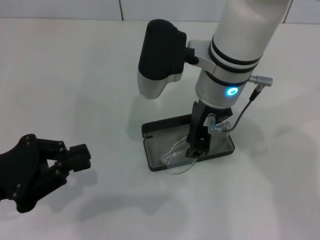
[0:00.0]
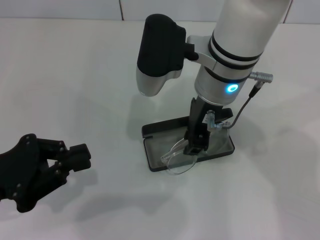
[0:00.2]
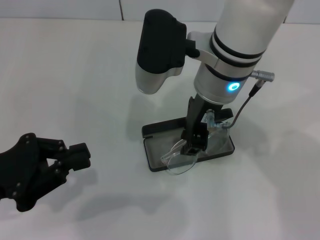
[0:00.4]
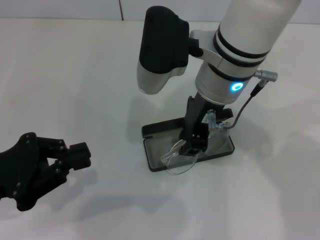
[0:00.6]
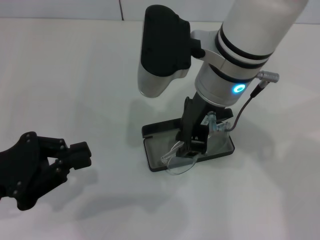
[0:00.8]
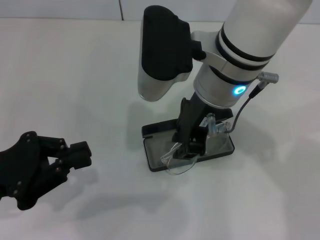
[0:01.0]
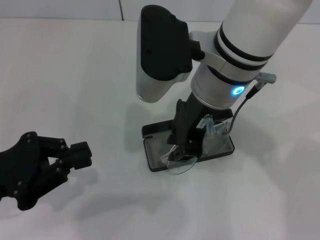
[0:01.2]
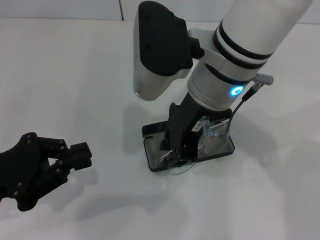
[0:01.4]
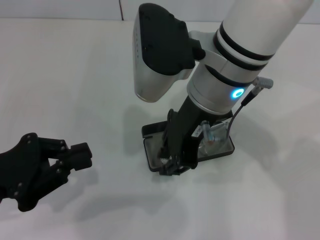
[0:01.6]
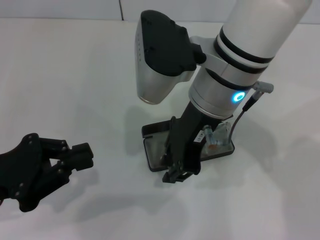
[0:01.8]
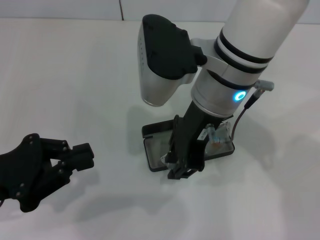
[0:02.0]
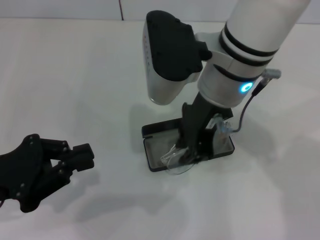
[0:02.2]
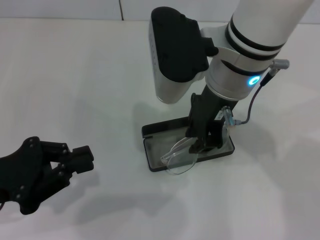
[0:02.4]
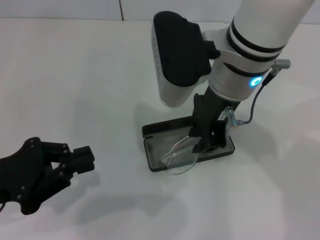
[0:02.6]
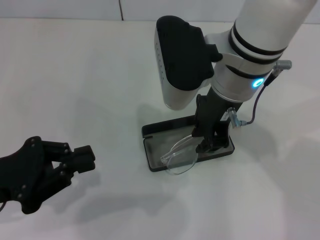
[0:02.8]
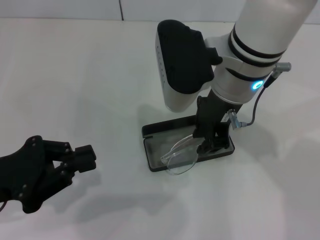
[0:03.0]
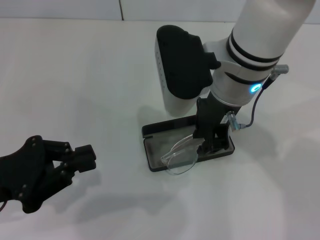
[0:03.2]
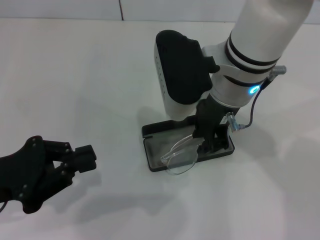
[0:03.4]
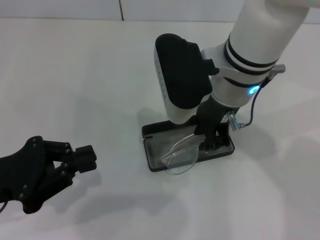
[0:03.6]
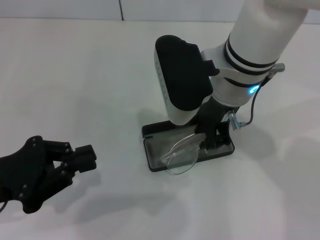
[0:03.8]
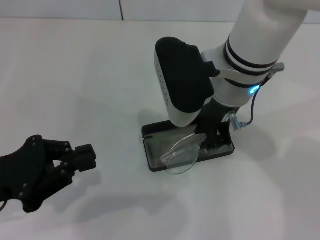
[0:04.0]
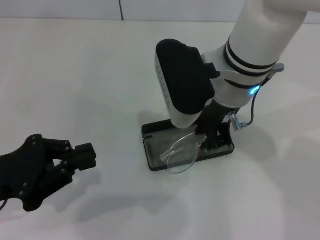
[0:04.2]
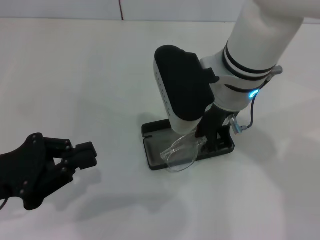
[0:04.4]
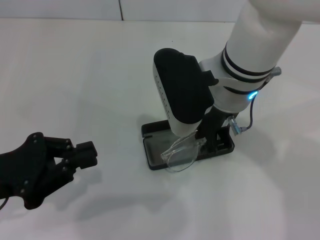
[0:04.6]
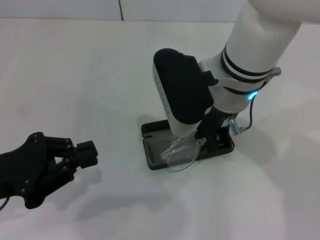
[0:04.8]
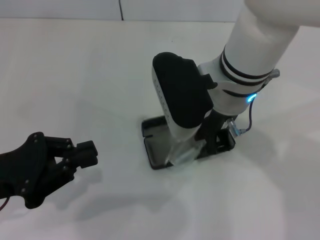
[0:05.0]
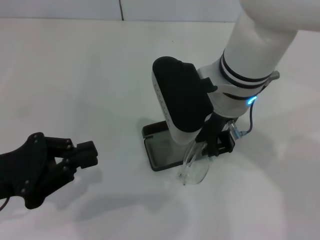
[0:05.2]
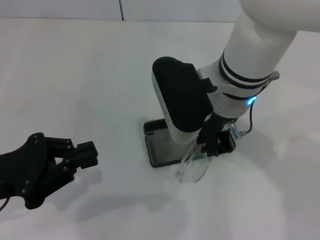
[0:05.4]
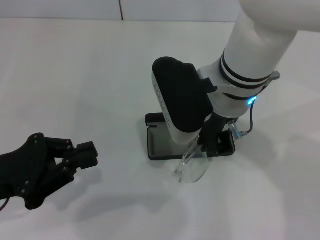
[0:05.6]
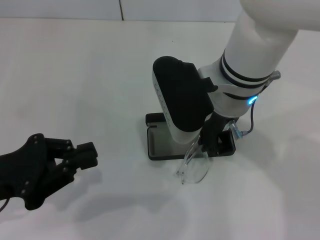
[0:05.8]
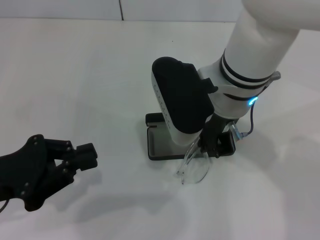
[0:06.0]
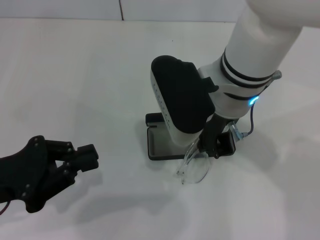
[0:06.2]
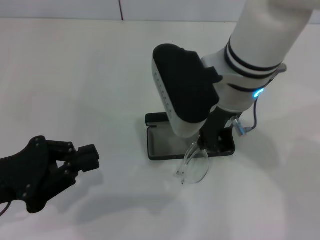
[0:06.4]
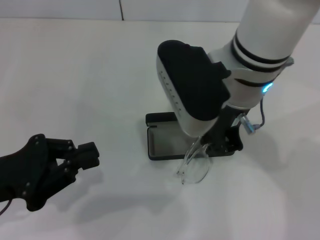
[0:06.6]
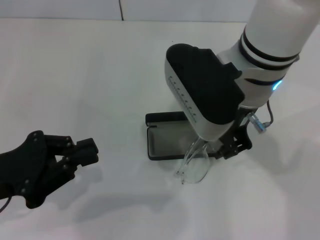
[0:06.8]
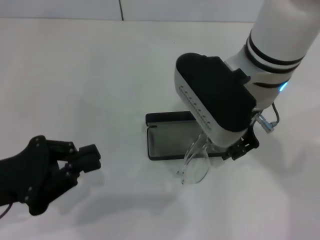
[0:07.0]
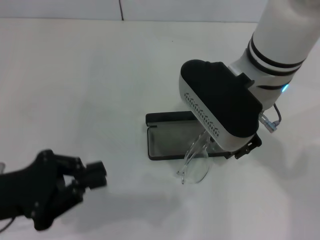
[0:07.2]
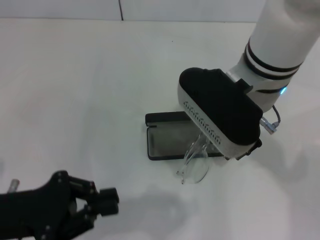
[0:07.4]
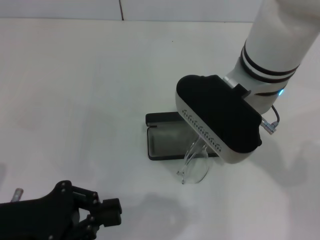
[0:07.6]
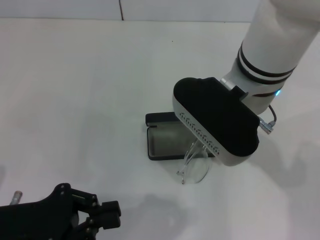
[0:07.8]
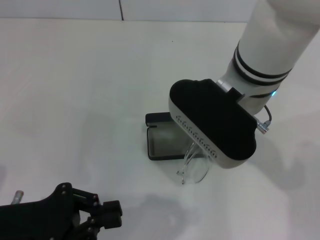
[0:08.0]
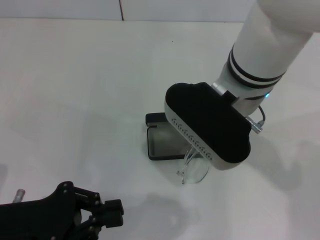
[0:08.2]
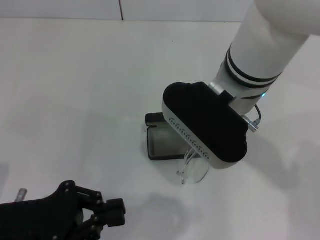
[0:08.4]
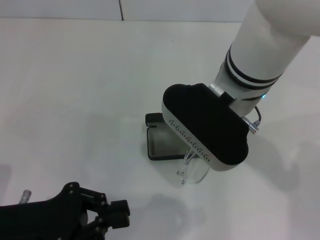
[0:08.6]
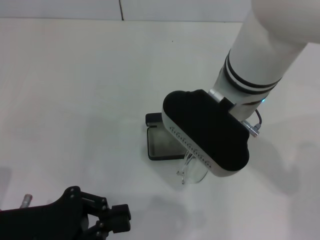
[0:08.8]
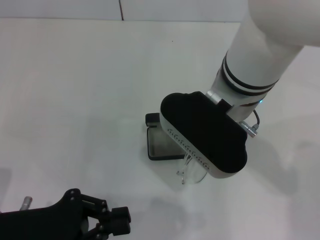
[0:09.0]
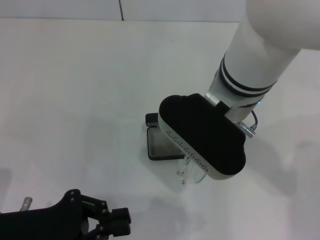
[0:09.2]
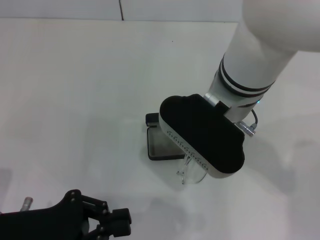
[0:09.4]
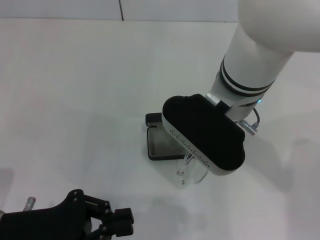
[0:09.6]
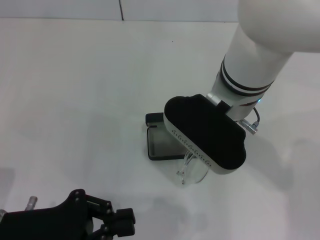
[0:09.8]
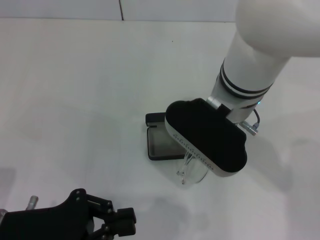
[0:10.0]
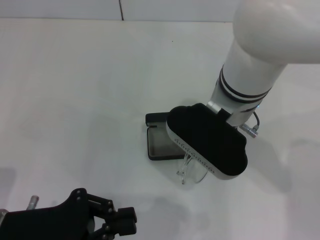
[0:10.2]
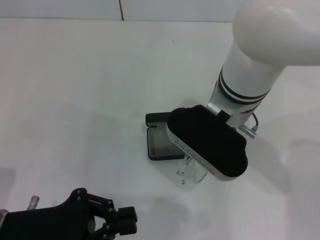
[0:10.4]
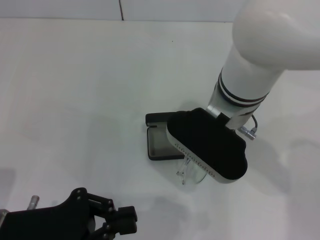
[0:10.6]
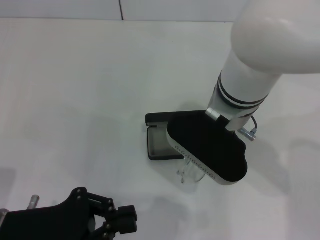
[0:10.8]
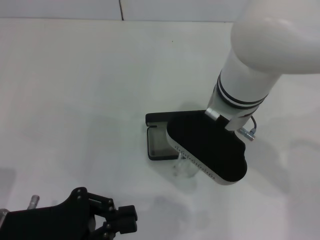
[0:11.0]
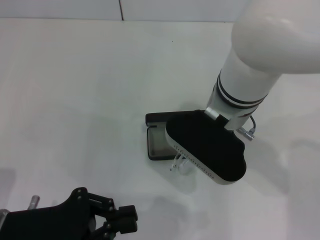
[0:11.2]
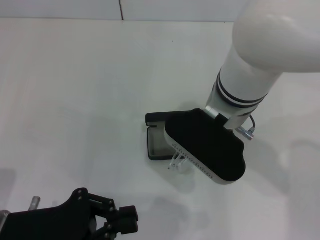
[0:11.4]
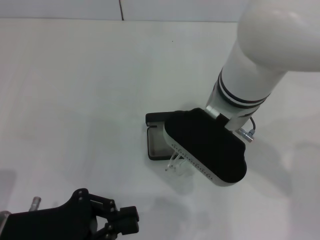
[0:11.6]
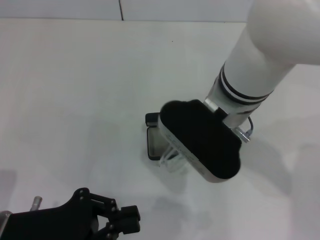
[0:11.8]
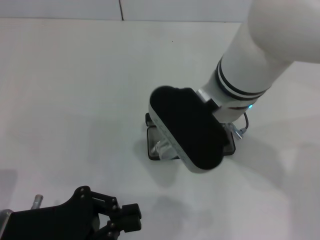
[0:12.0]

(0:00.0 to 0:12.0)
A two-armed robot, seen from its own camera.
0:00.0 - 0:03.0: The grippers make only small movements.
0:03.0 - 0:04.4: The grippers move only a little.
0:04.4 - 0:06.0: Both grippers stay about where they are.
0:06.0 - 0:07.6: The right gripper opens up.
0:07.6 - 0:10.4: The grippers move only a little.
0:10.4 - 0:12.0: The right gripper closes its fingers.

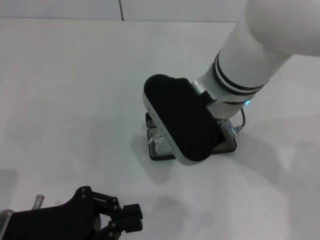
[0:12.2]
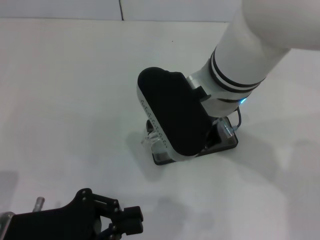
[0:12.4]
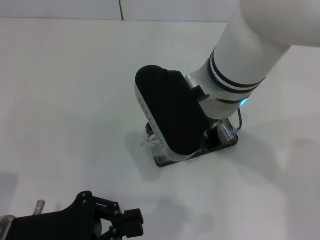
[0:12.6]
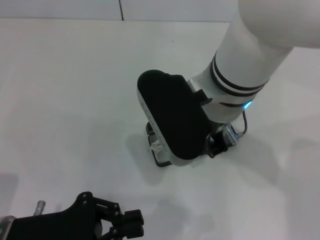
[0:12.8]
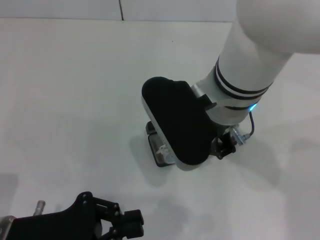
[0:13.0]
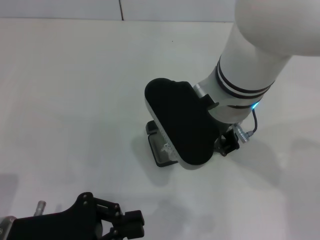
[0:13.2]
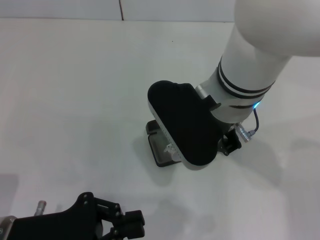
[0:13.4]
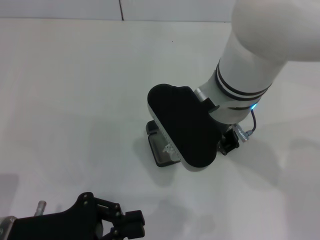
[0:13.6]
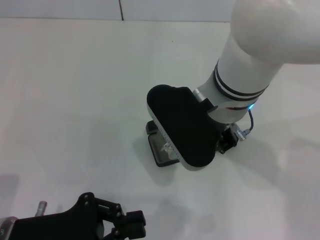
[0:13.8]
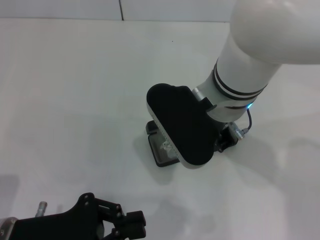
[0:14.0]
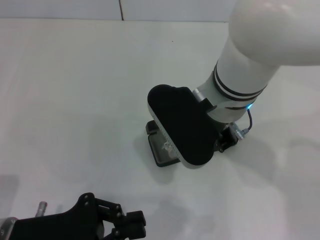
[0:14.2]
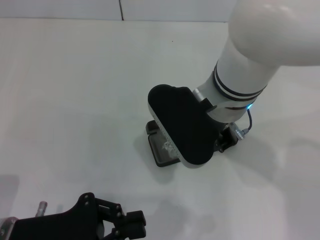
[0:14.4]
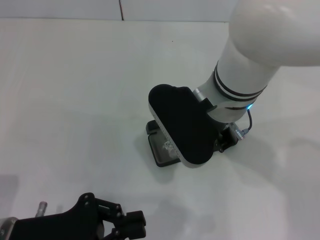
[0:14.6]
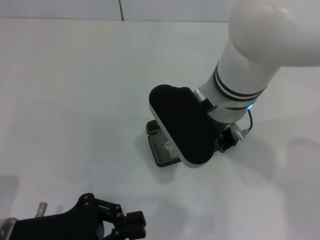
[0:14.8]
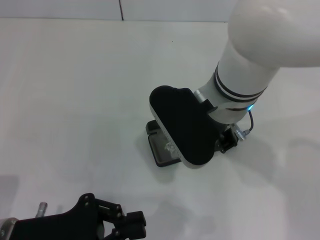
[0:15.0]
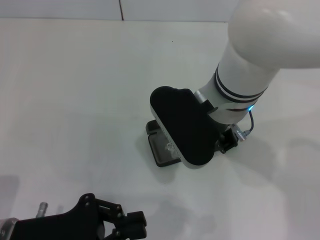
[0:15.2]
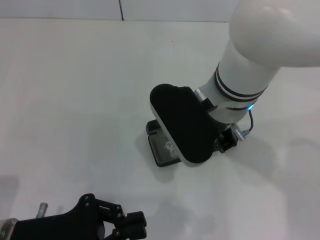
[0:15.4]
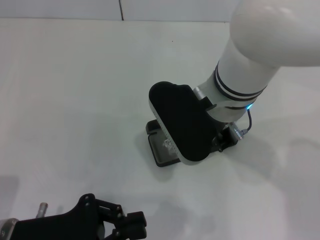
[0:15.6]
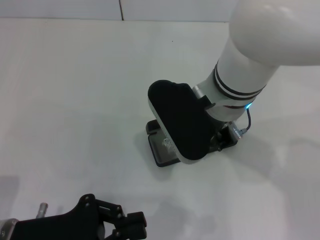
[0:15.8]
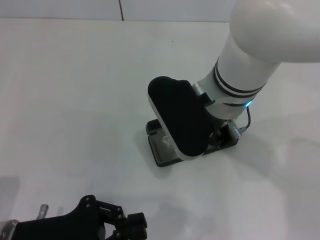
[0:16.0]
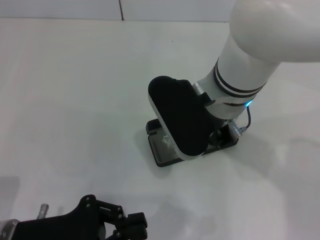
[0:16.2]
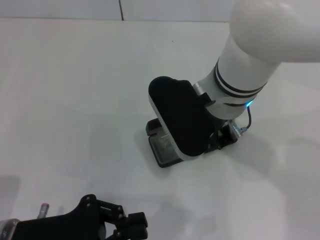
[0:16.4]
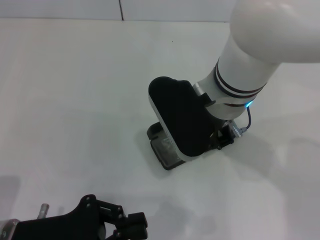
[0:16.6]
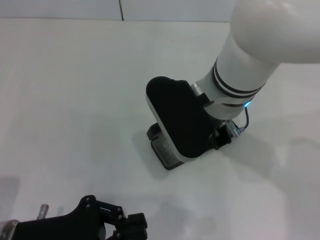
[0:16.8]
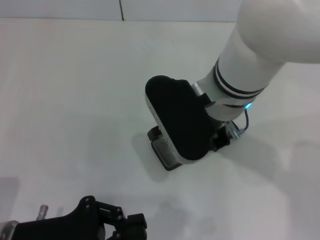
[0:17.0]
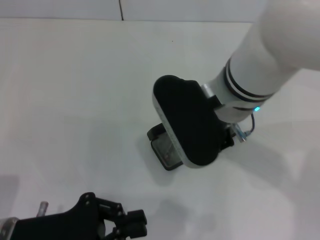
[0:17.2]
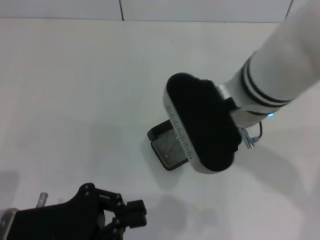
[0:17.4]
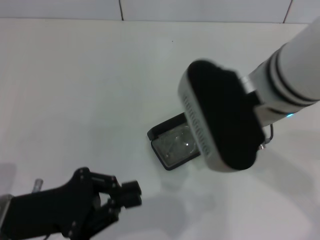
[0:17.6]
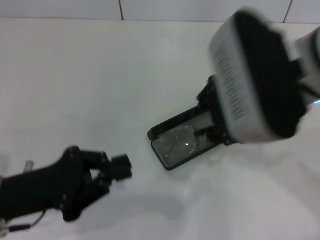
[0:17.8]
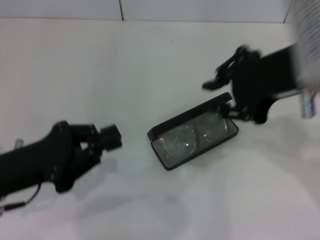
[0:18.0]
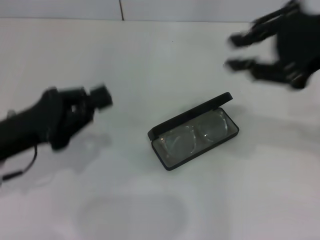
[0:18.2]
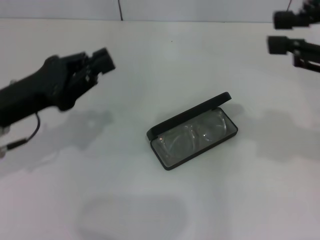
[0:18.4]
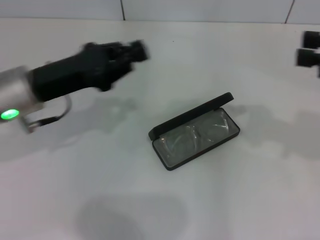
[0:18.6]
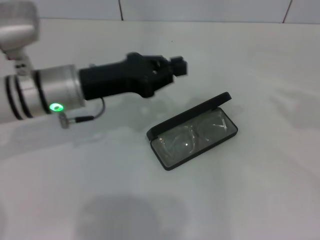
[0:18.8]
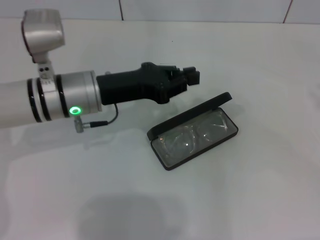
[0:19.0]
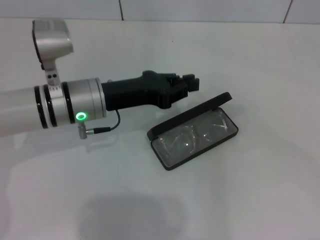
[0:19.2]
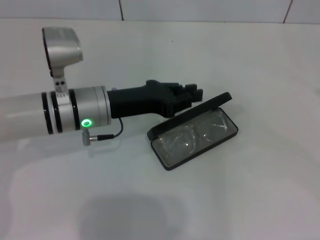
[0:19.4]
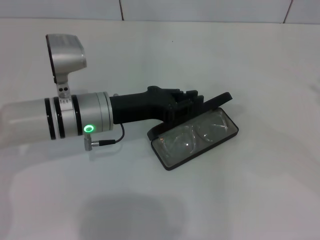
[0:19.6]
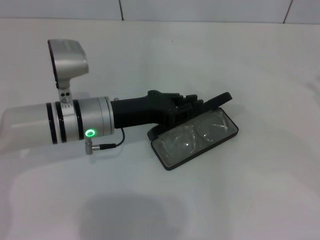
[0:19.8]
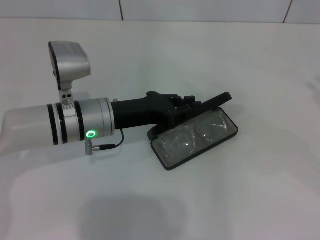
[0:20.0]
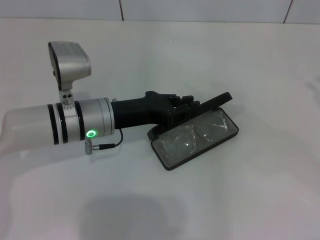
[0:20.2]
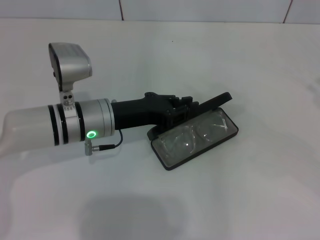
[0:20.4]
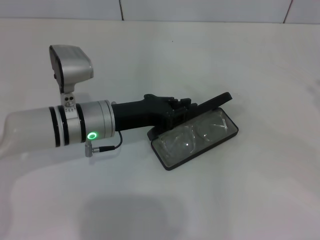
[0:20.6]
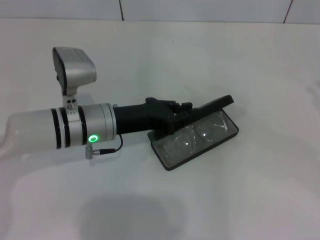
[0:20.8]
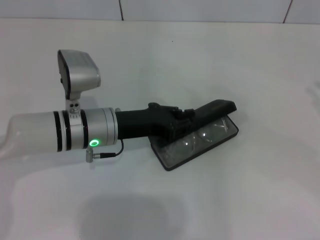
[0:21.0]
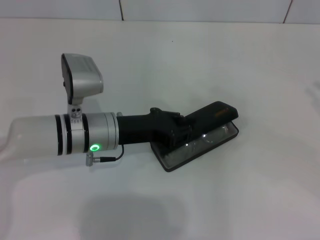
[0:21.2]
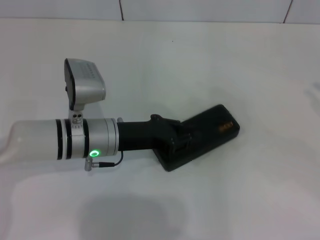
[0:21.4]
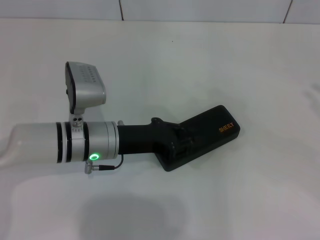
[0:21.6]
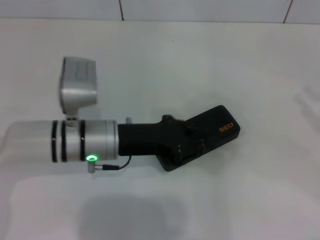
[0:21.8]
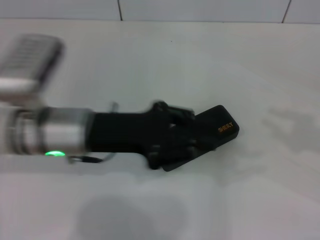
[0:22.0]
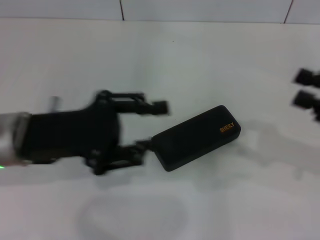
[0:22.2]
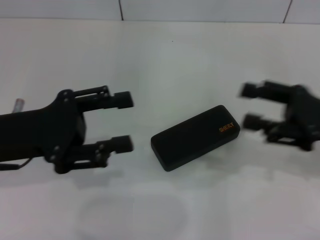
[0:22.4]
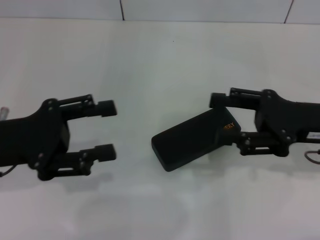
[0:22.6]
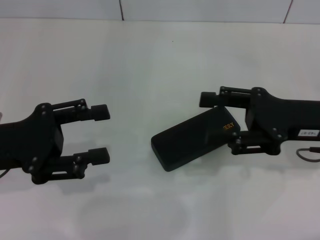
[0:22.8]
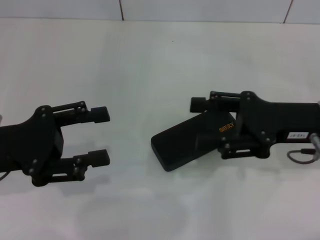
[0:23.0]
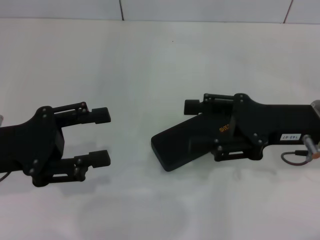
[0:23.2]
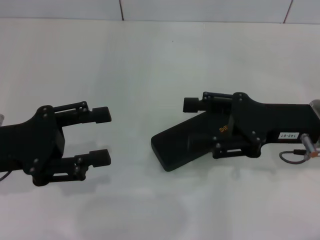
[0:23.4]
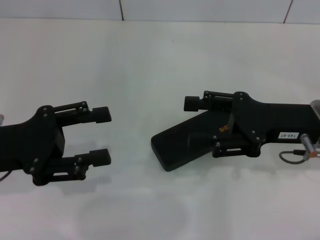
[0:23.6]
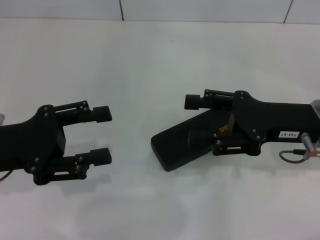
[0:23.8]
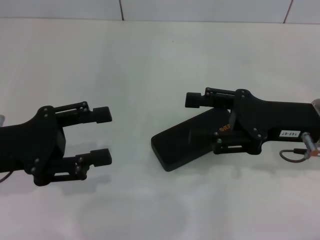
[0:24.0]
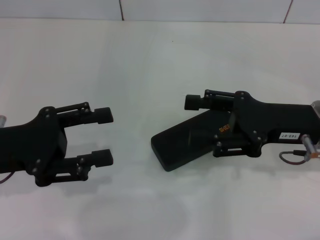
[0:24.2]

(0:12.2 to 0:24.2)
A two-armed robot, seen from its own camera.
Step, 0:12.2 - 0:16.6: Put the glasses into the case with your right hand.
Step, 0:16.8 - 0:21.4: Close the glasses case with your left hand.
0:12.2 - 0:13.8: The grippers stay close to where they were, moving slightly.
0:13.8 - 0:15.2: The two grippers keep their place.
0:15.2 - 0:16.6: Both grippers stay about where they are.
0:16.6 - 0:18.2: The right gripper shifts roughly 20 cm to the right and upward. The left gripper moves forward, about 10 cm.
0:18.2 - 0:19.8: The left gripper heads to the right and forward, covering approximately 15 cm, while the right gripper goes about 25 cm to the right and downward.
0:19.8 - 0:21.2: The grippers stay close to where they were, moving slightly.
0:21.2 - 0:22.6: The left gripper goes approximately 15 cm to the left, upward and backward, and opens its fingers; the right gripper heads to the left, covering approximately 15 cm, and opens its fingers.
0:22.6 - 0:24.2: There are only small adjustments of the grippers.
